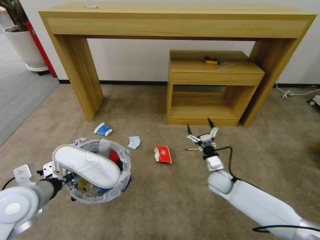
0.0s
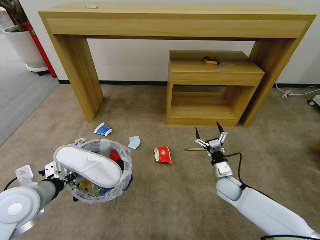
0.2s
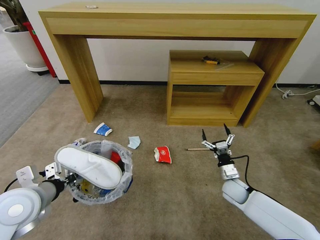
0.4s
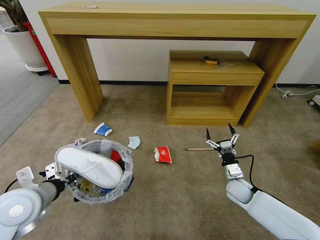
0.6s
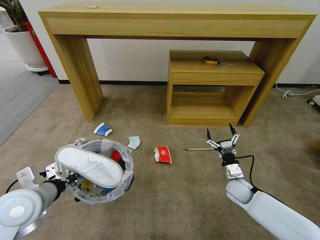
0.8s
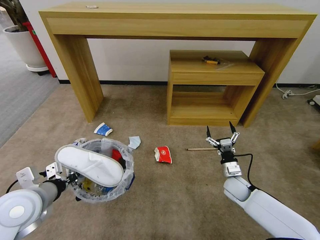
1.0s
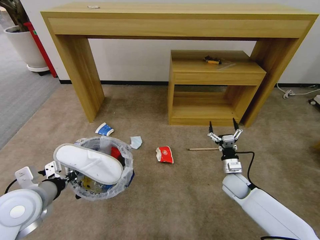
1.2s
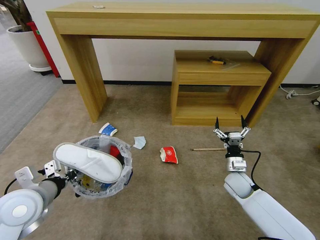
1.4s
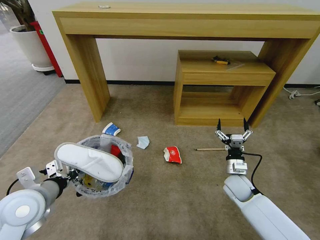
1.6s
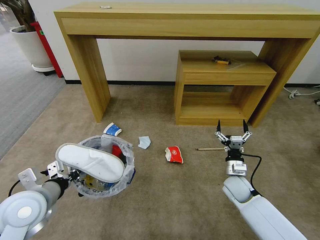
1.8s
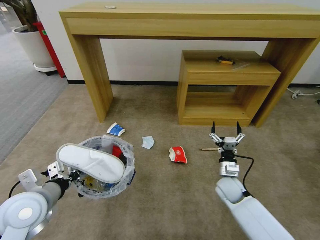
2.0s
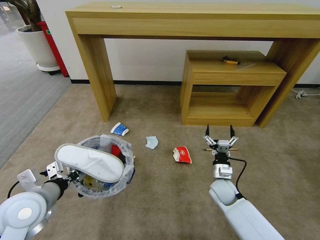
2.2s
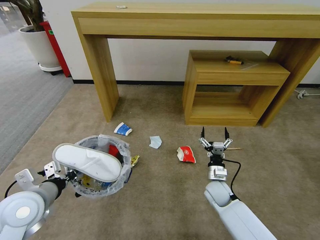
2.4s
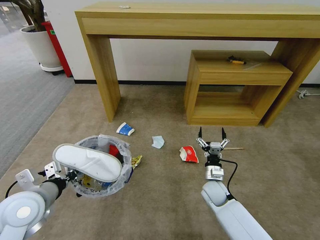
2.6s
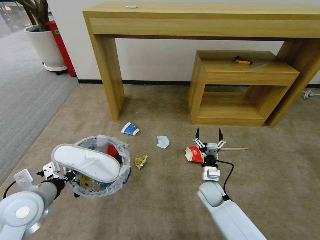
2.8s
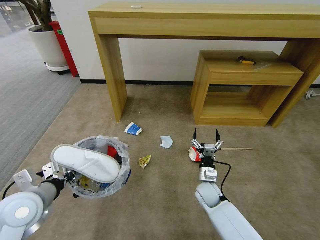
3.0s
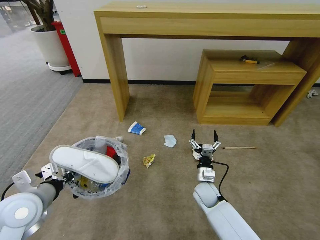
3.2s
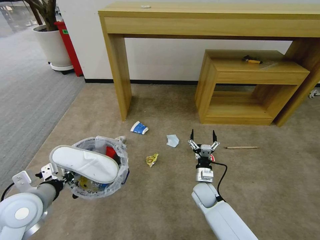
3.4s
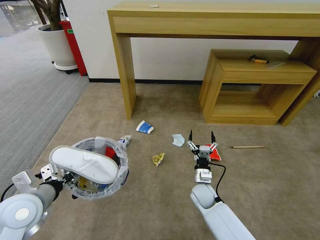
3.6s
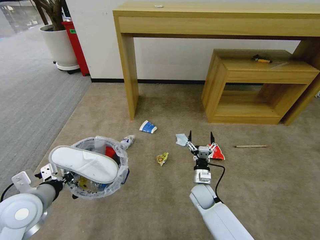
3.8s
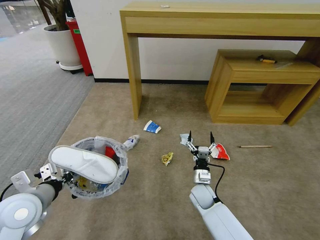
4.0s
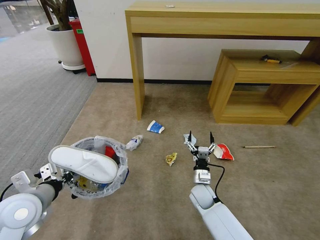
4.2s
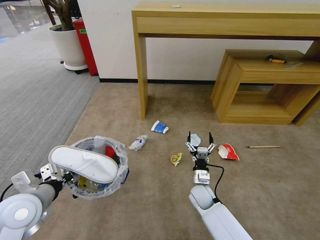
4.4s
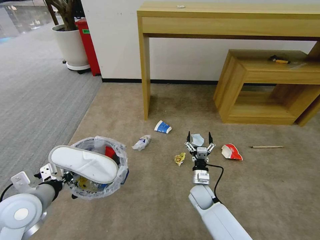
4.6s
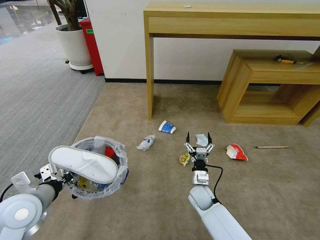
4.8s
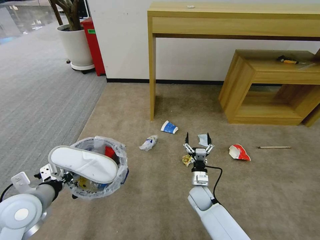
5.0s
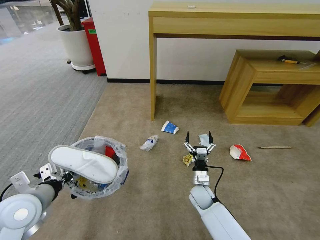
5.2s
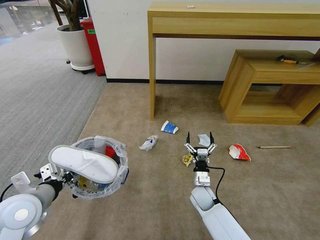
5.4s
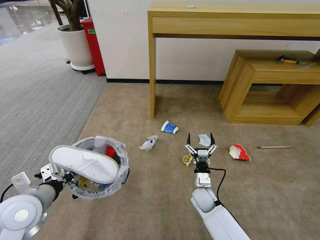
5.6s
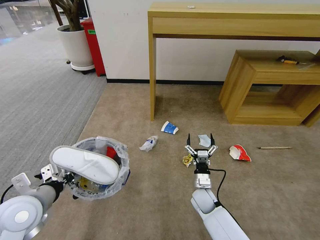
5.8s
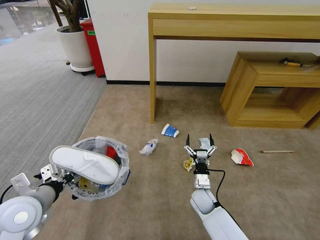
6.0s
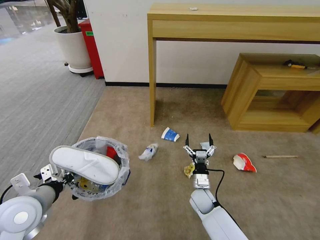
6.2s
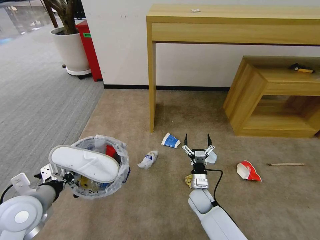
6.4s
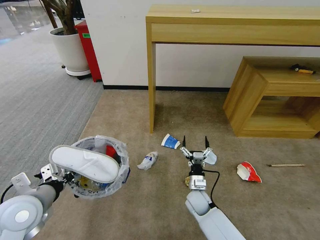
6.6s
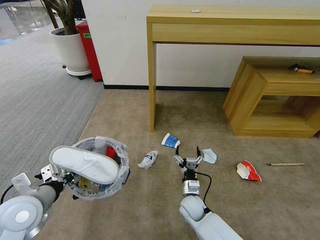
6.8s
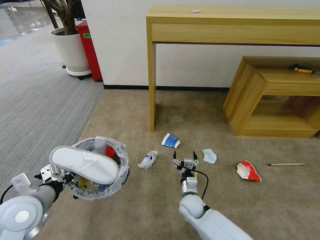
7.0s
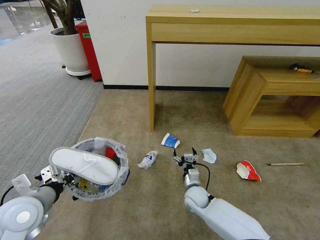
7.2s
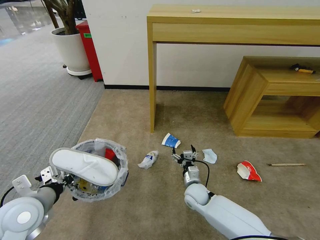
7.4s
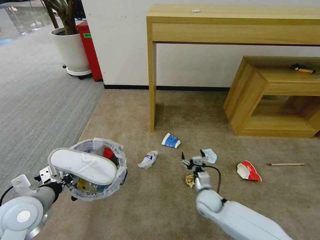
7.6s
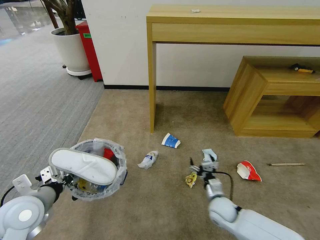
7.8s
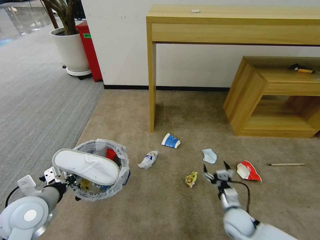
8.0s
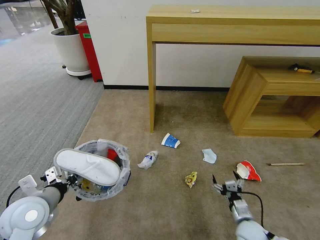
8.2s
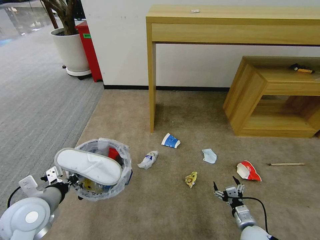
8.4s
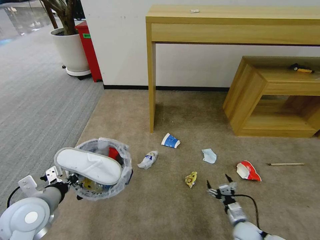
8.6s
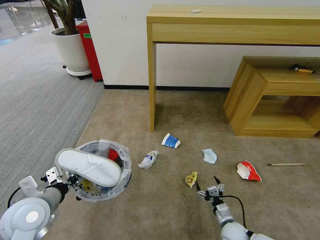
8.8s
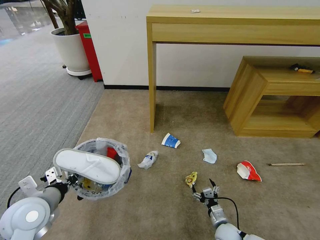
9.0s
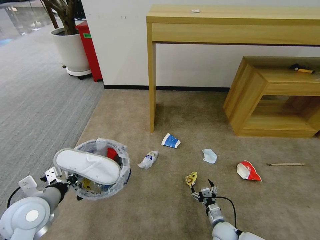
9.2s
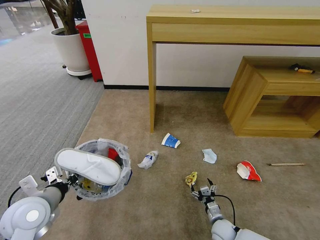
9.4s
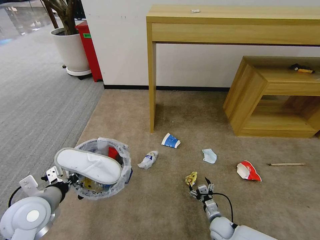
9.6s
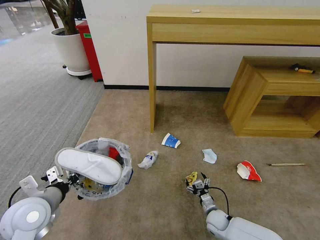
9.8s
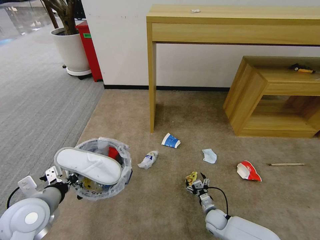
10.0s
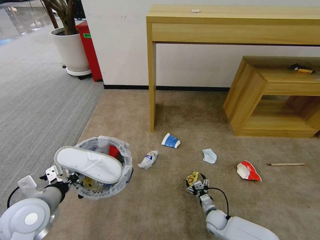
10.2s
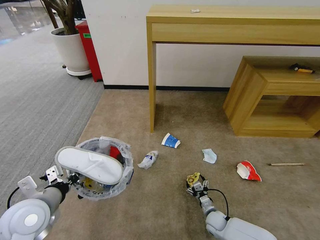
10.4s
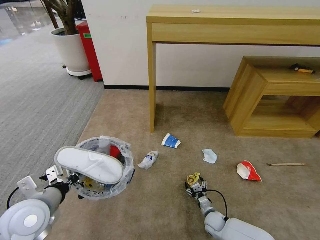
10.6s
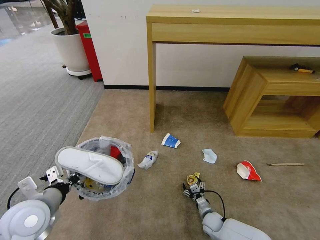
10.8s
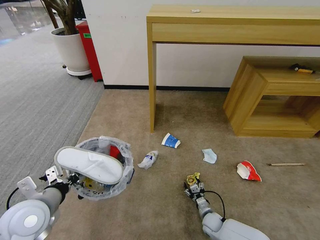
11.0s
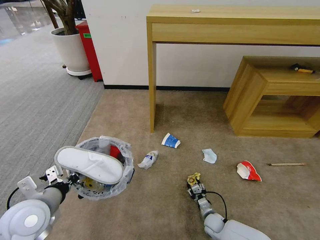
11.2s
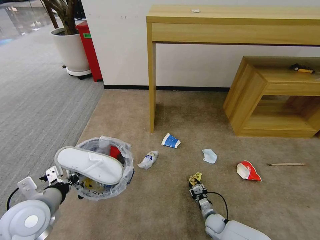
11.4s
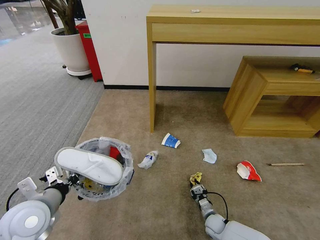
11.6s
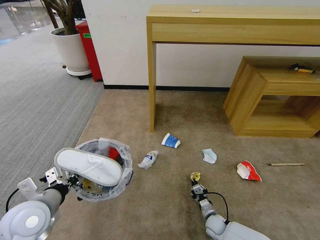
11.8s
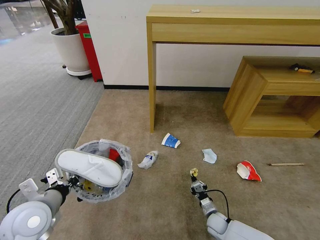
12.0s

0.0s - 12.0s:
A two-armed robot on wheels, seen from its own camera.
Task of the whole recording: Pick up the trash bin and place the garbage on the floor into it.
0.0s - 1.6s: The right gripper changes place by about 5 cm.
1.6s - 3.0s: The right gripper goes some 10 cm to the left and downward.
4.4s - 6.0s: The grippers stay close to where they were, moving slightly.
7.6s - 9.0s: The right gripper shifts approximately 15 cm backward, downward and to the right.
9.0s - 10.4s: The right gripper moves forward and downward, some 10 cm.
10.4s - 12.0s: The right gripper closes its fingers.

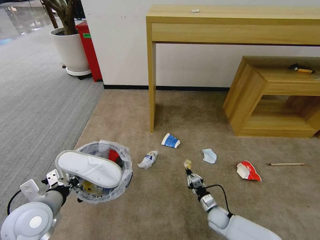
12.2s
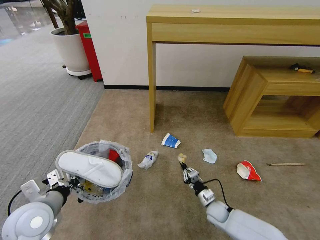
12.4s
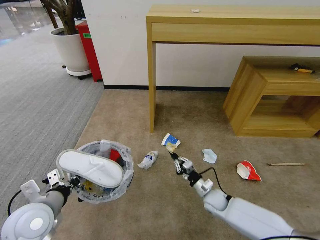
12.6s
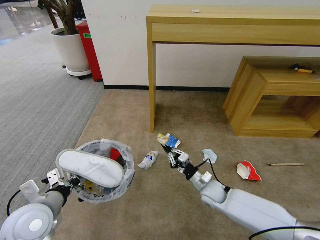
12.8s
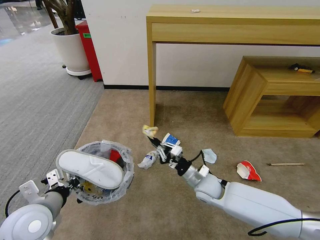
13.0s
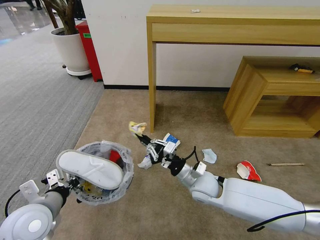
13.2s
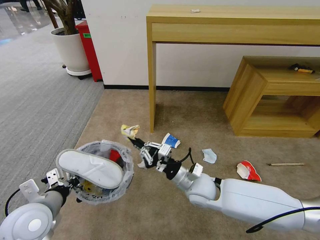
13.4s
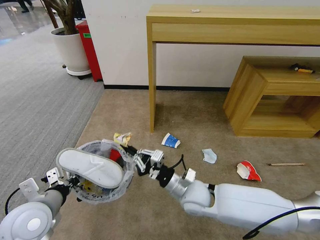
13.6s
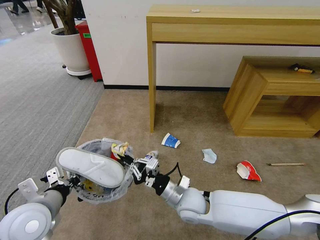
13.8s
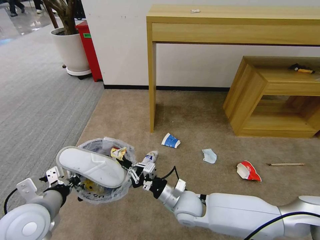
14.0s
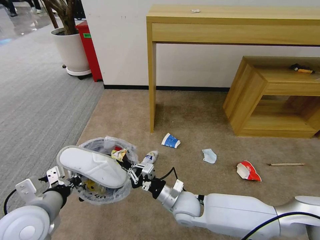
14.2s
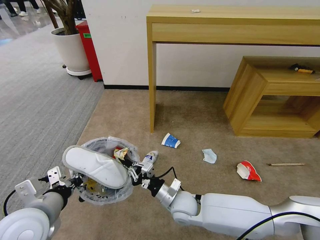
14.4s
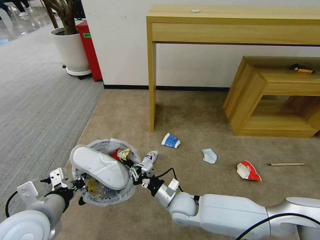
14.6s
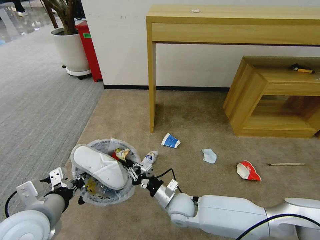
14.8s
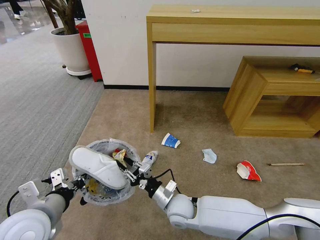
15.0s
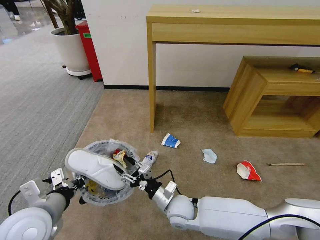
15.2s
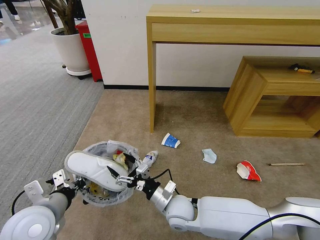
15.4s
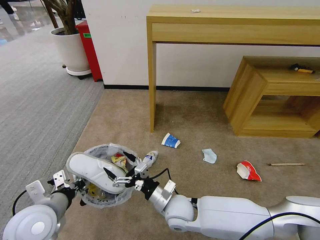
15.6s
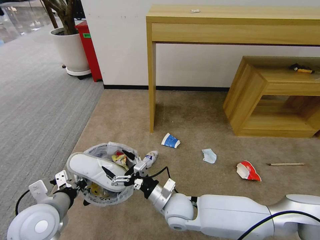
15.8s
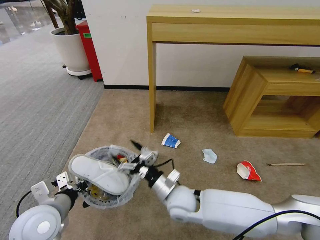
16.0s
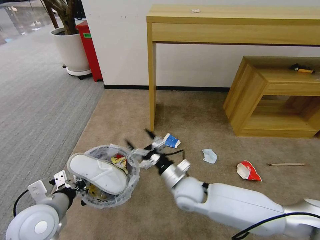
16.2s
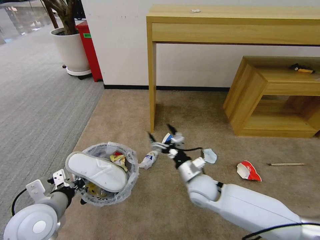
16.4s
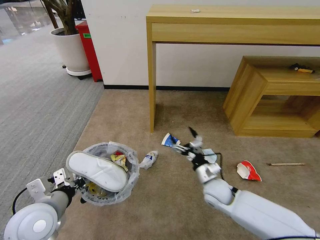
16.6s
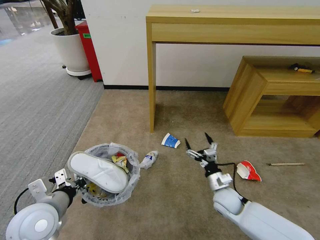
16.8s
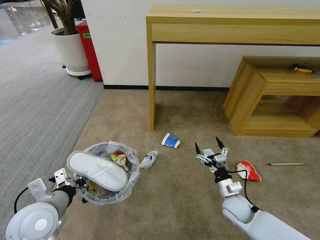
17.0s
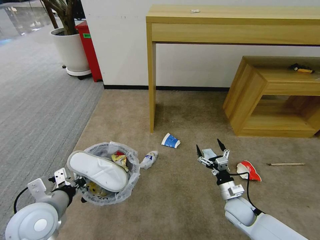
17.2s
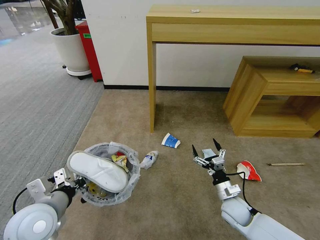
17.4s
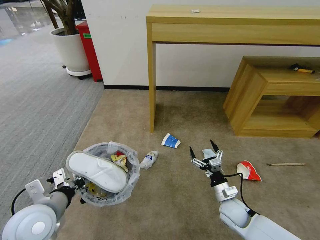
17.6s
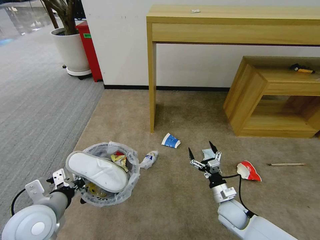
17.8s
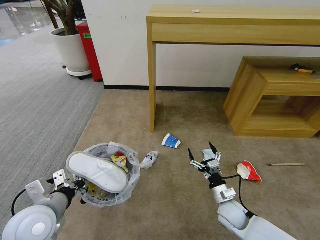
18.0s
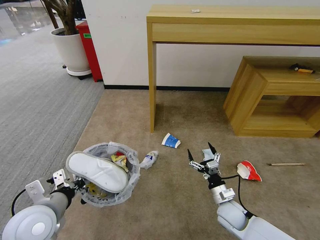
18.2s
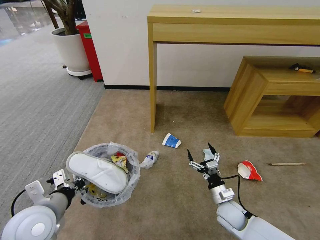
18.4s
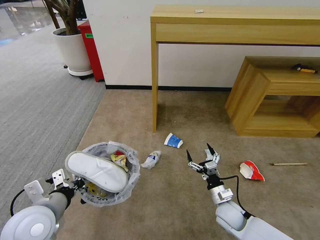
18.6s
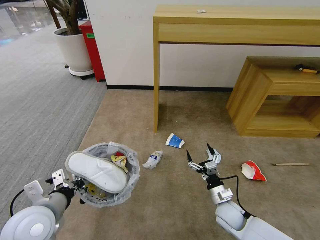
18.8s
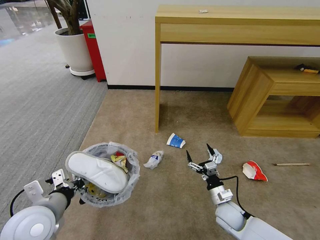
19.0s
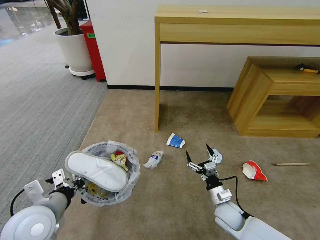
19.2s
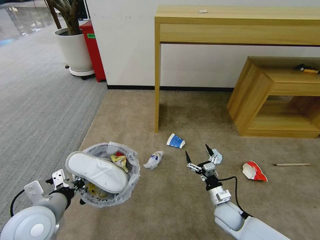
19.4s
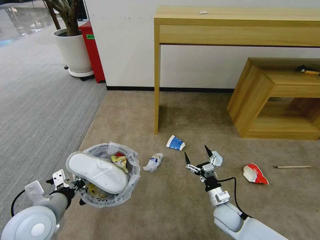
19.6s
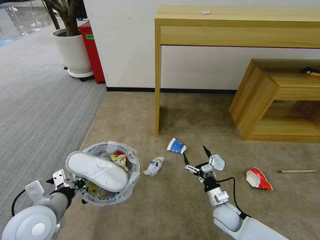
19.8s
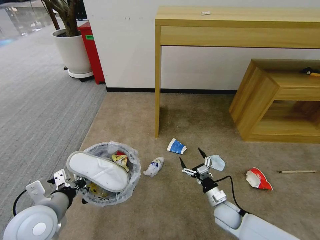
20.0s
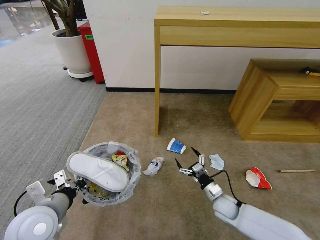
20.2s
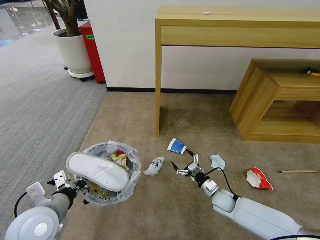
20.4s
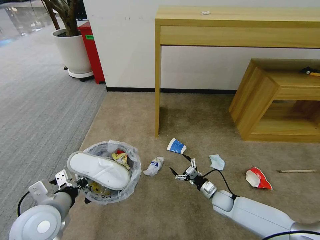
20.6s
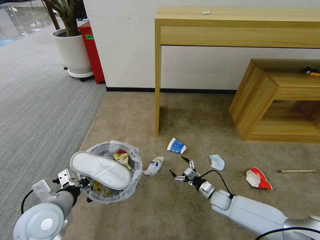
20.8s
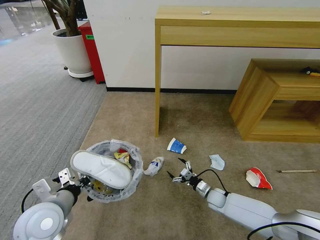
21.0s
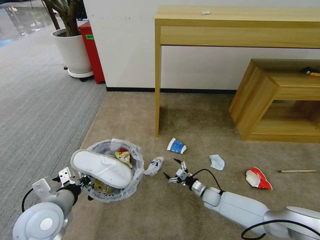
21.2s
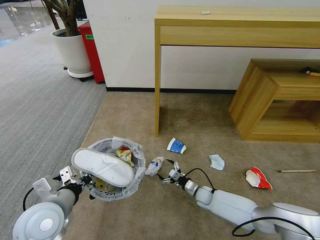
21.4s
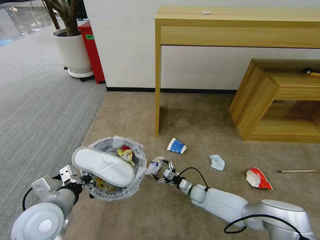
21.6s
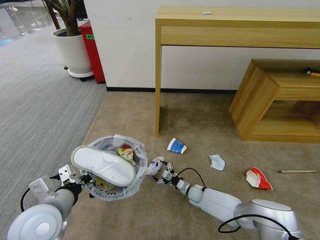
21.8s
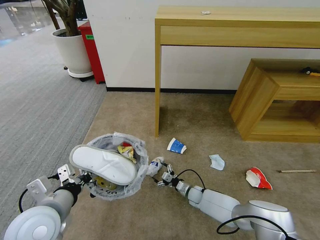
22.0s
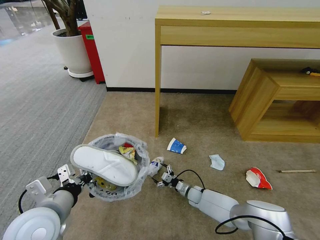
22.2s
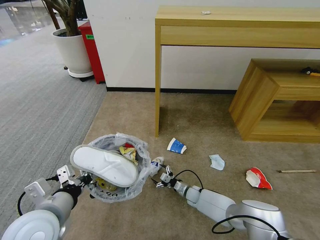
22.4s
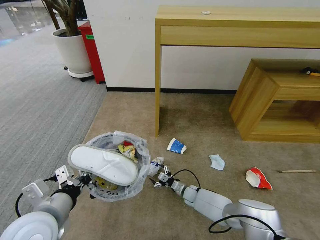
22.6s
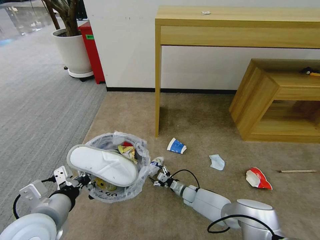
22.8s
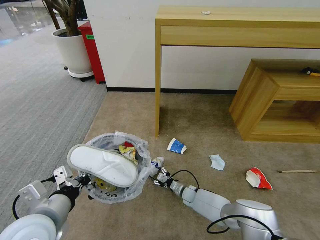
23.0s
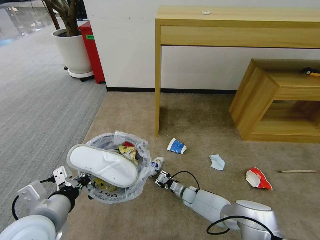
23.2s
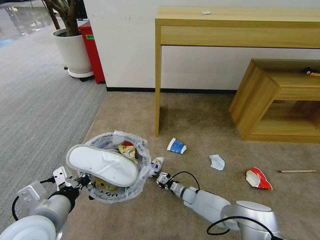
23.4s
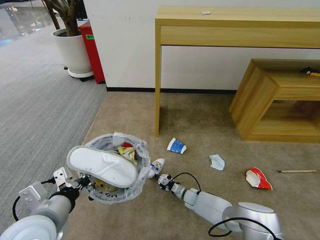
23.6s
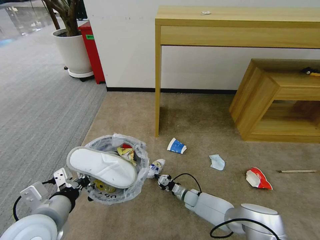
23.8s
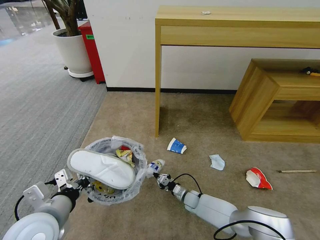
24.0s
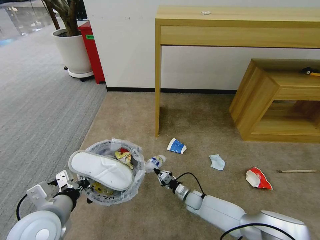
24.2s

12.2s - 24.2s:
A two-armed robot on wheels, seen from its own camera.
Task of the whole recording: Pick up the trash bin and place the garbage on the floor into it.
12.2s - 13.8s: The right gripper travels upward and to the left by roughly 30 cm.
13.8s - 15.2s: The right gripper ends up some 5 cm from where it was, and opens its fingers.
15.2s - 16.6s: The right gripper heads to the right, covering approximately 15 cm, and opens.
16.6s - 18.2s: The right gripper moves backward and downward, about 10 cm.
18.2s - 19.8s: There are only small adjustments of the grippers.
19.8s - 21.2s: The right gripper shifts roughly 15 cm forward and downward.
21.2s - 22.6s: The right gripper shifts some 10 cm to the left, while the left gripper changes place by some 5 cm.
22.6s - 24.2s: The right gripper closes up.
